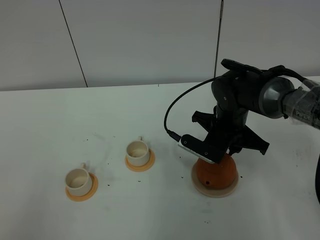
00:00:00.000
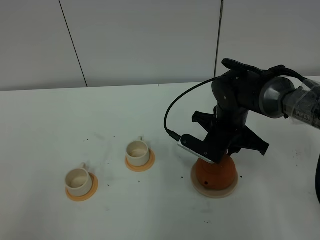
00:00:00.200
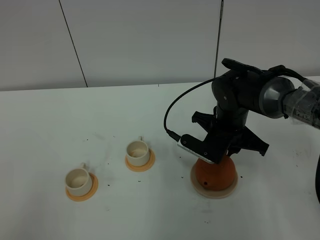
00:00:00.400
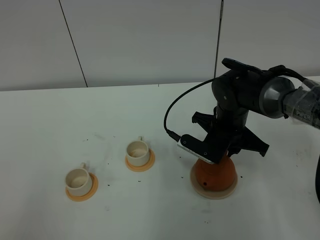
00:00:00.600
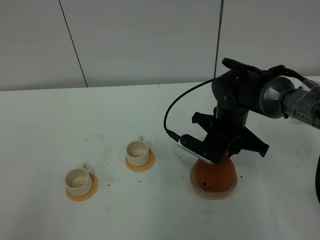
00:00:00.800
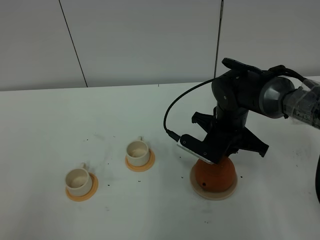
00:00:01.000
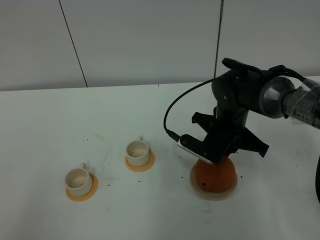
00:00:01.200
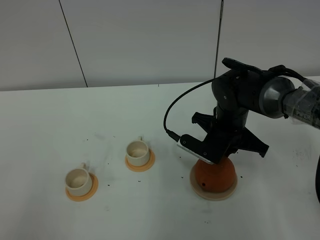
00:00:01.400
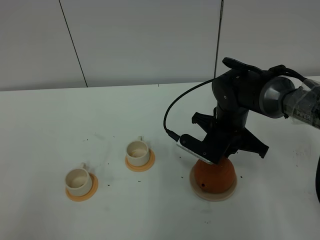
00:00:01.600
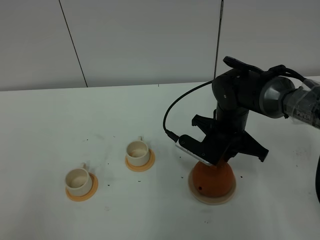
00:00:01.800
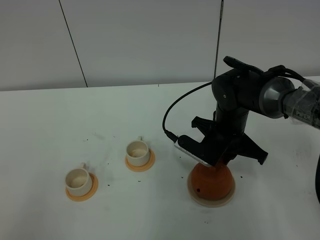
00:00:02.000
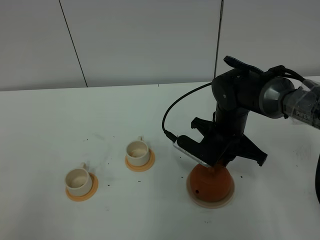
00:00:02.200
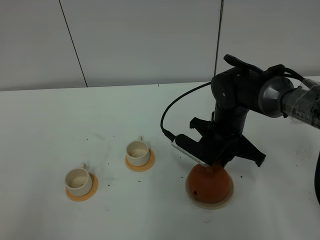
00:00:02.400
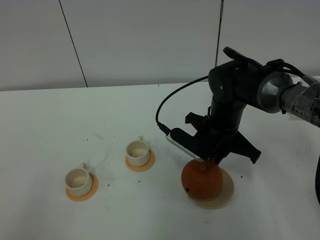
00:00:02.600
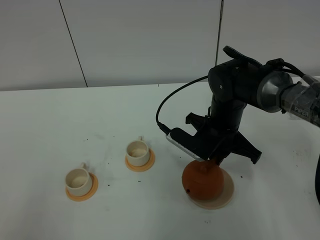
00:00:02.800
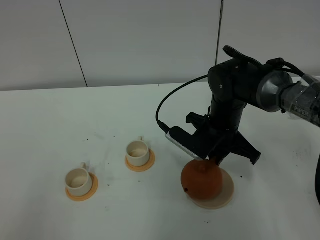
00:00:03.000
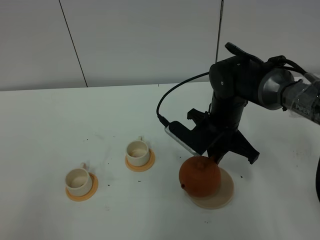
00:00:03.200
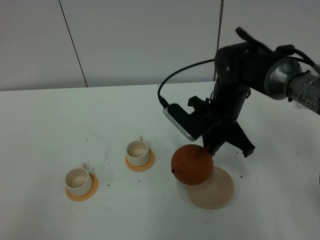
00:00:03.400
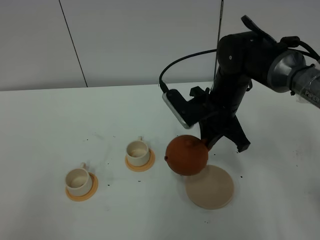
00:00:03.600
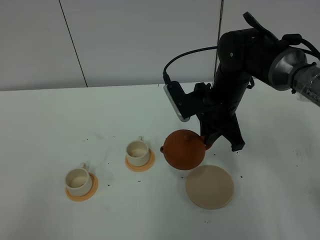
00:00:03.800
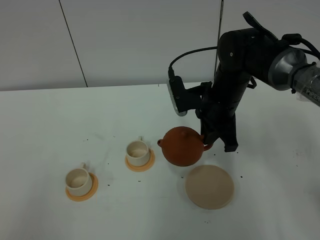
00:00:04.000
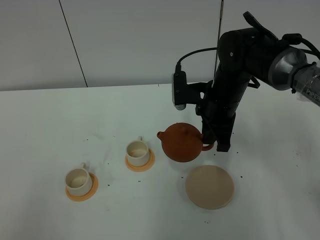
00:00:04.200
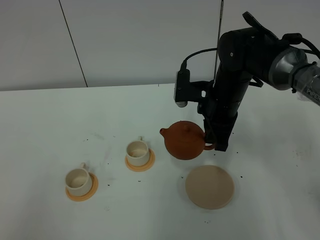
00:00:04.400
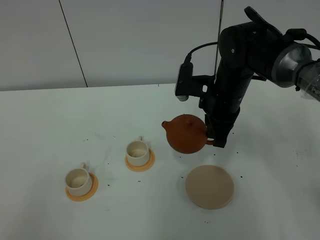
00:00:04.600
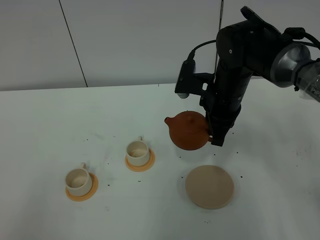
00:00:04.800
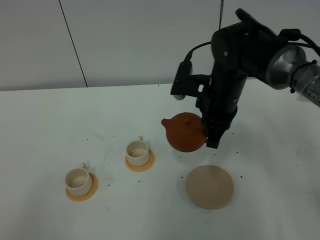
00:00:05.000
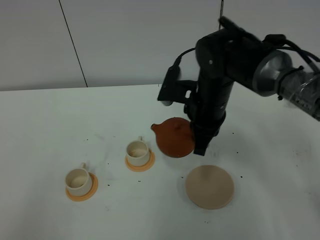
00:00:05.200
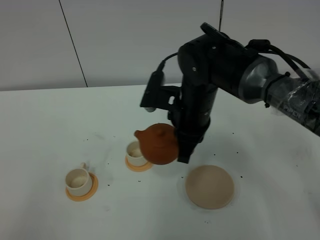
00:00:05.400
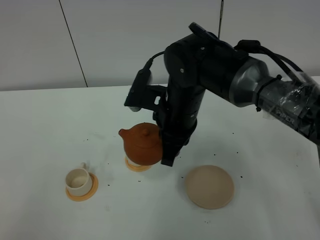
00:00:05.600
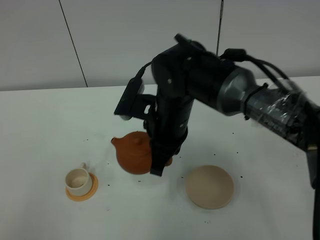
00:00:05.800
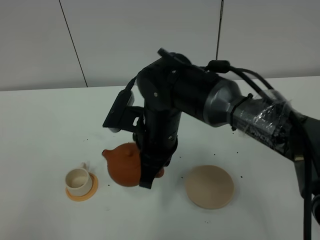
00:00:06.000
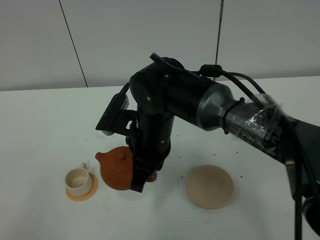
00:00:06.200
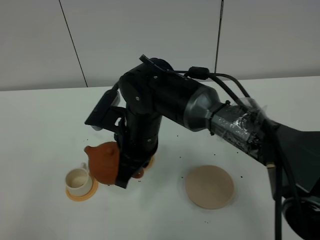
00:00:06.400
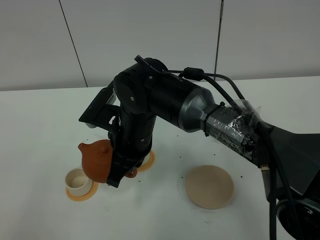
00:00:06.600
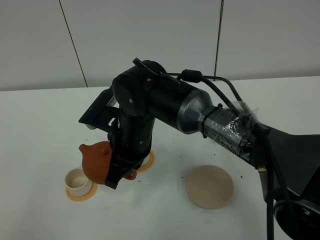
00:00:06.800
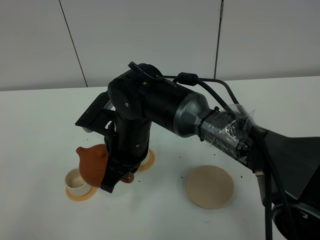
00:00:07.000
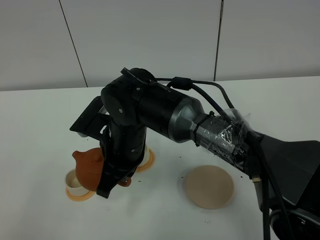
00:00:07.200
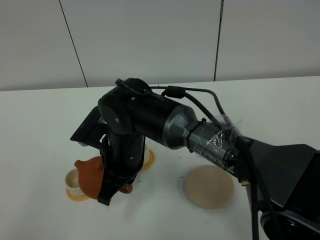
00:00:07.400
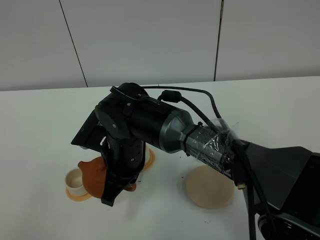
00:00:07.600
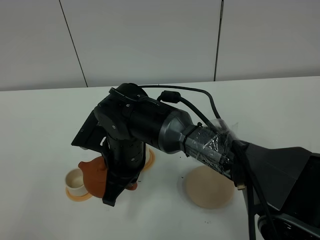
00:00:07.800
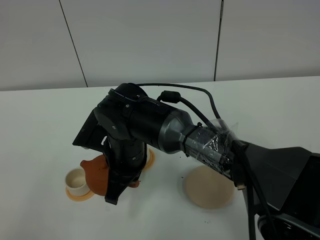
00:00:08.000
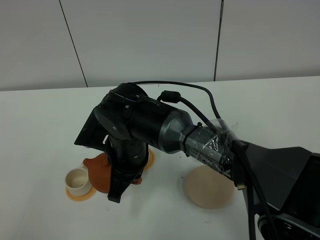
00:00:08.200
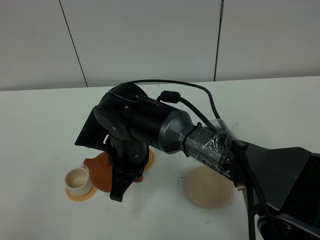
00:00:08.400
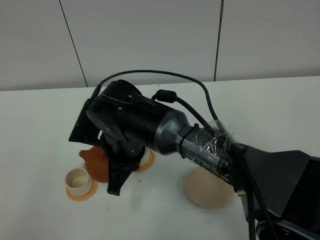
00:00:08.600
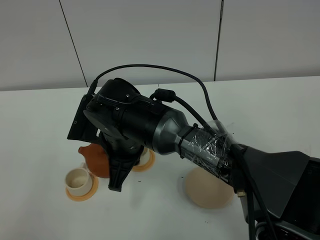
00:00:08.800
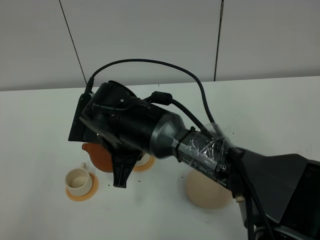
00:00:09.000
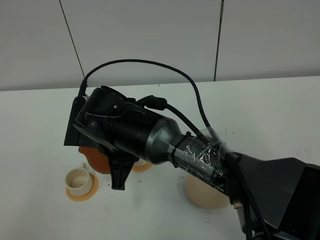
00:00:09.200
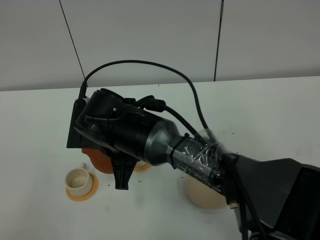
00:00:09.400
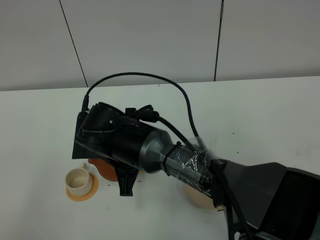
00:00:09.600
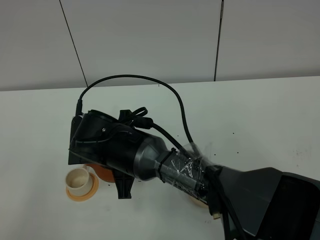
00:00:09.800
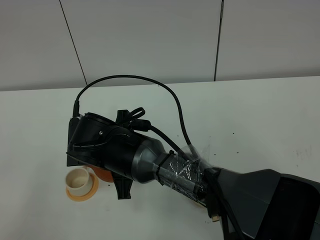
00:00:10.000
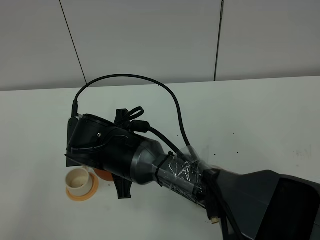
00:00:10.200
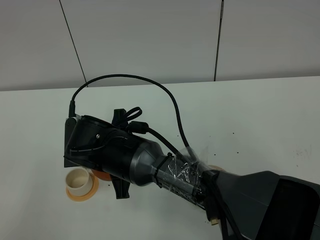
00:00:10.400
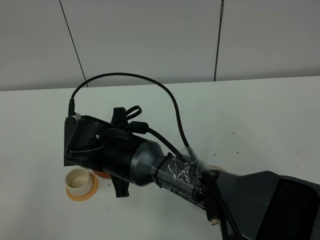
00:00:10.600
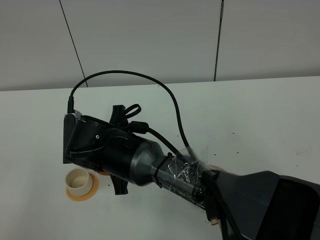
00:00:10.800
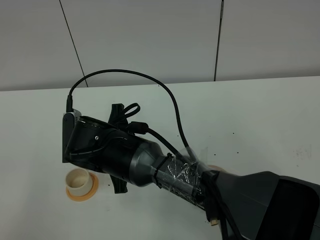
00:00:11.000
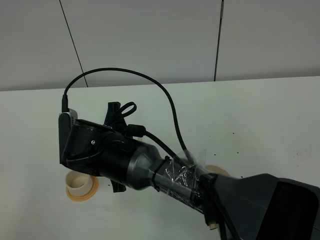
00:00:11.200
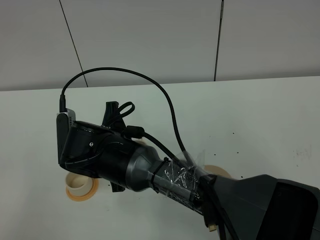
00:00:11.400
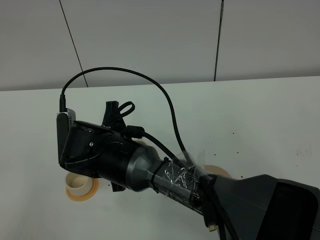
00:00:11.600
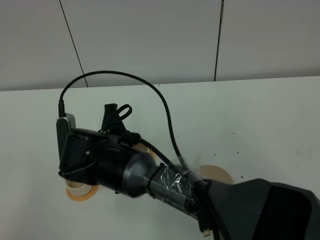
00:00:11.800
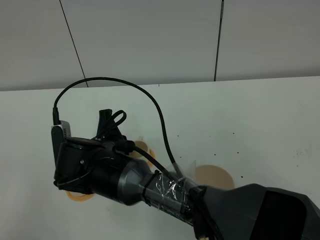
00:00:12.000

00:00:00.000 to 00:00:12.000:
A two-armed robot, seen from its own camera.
Task of the whole recording: grasp the brown teapot and pour the tea into the two white teacups one by one, put the brown teapot back in its original place.
Step, 00:00:00.000 to 00:00:03.200: Pick up the teapot with the right gripper.
00:00:00.000 to 00:00:01.600: The right gripper closes its fingers.
00:00:01.600 to 00:00:03.000: The grippers move only a little.
00:00:03.000 to 00:00:04.400: The right gripper moves about 5 cm.
00:00:04.400 to 00:00:06.000: The right gripper moves to the left and backward, about 15 cm.
00:00:06.000 to 00:00:07.600: The right gripper shifts approximately 5 cm to the left.
00:00:10.400 to 00:00:12.000: The grippers move only a little.

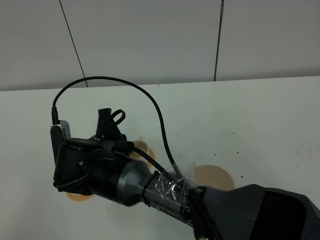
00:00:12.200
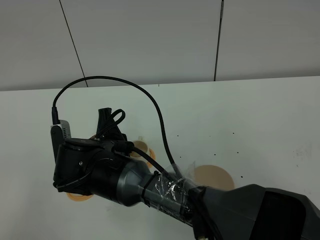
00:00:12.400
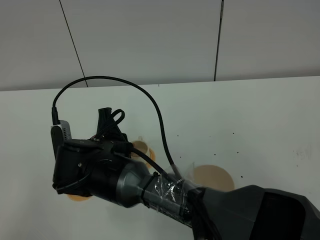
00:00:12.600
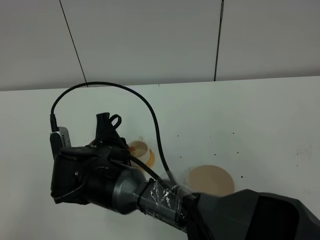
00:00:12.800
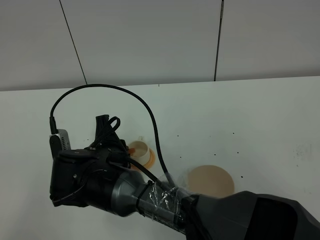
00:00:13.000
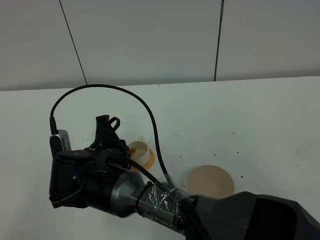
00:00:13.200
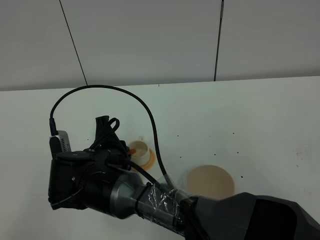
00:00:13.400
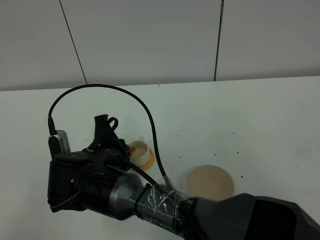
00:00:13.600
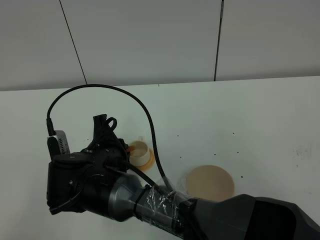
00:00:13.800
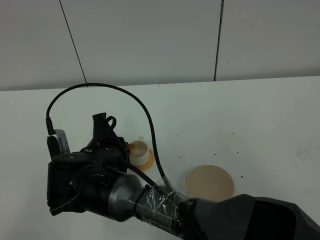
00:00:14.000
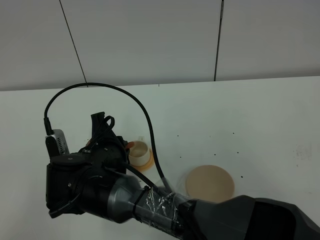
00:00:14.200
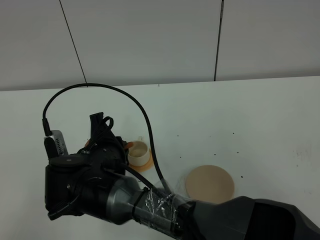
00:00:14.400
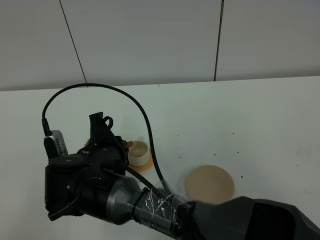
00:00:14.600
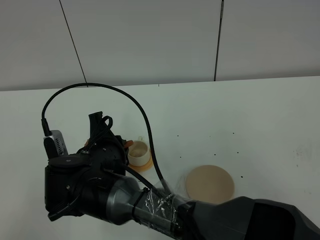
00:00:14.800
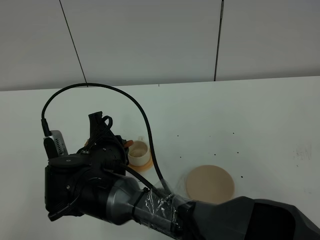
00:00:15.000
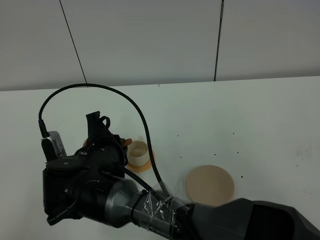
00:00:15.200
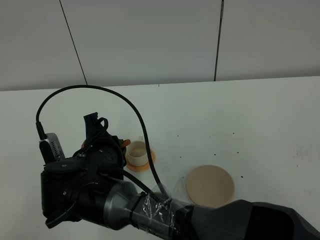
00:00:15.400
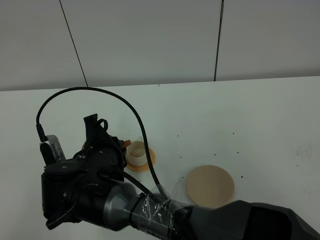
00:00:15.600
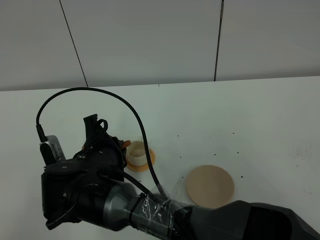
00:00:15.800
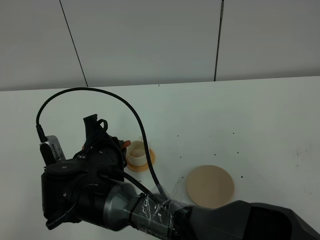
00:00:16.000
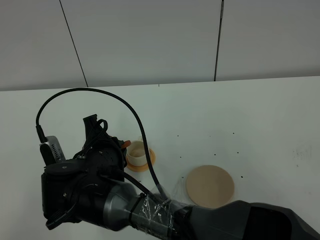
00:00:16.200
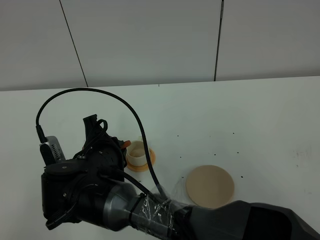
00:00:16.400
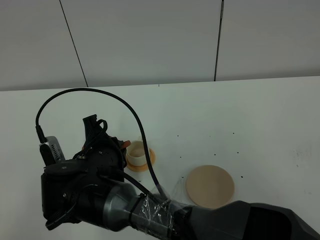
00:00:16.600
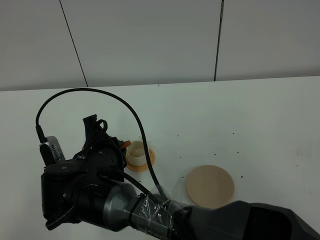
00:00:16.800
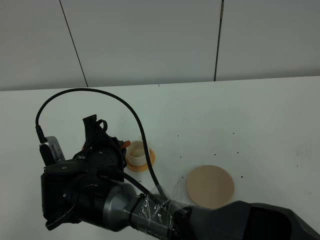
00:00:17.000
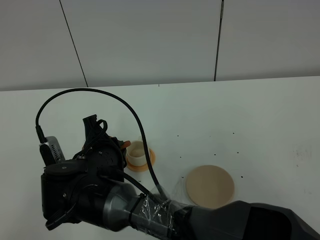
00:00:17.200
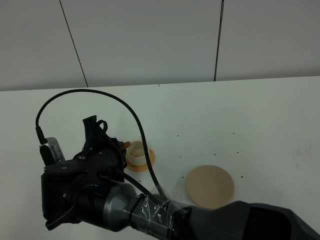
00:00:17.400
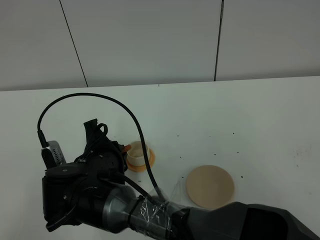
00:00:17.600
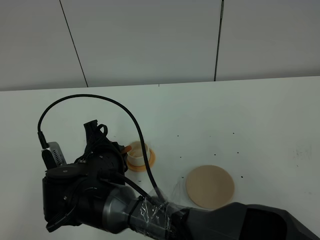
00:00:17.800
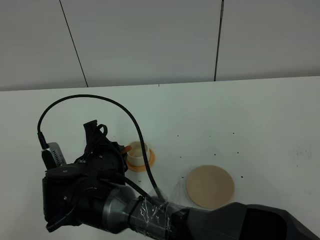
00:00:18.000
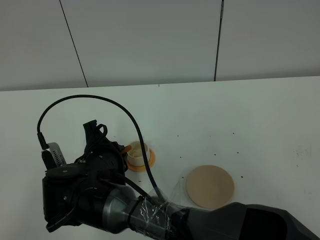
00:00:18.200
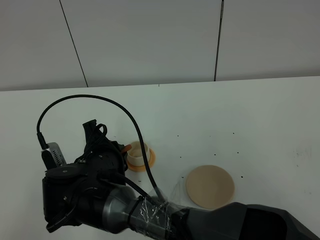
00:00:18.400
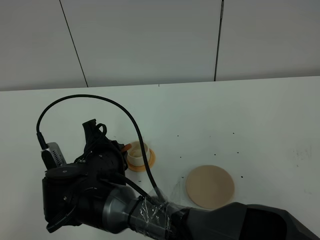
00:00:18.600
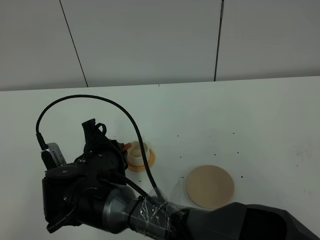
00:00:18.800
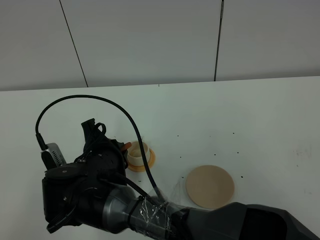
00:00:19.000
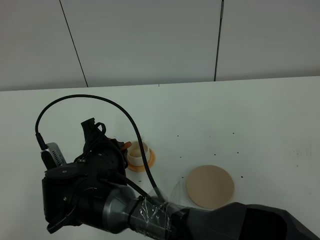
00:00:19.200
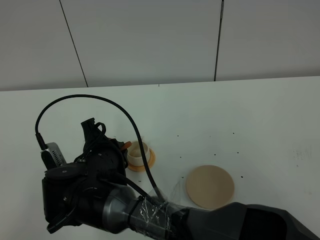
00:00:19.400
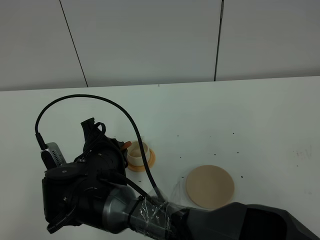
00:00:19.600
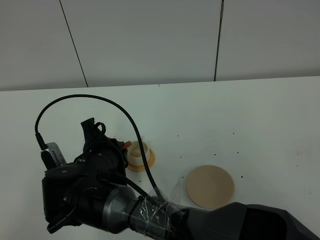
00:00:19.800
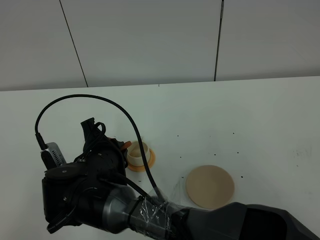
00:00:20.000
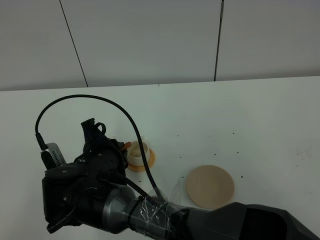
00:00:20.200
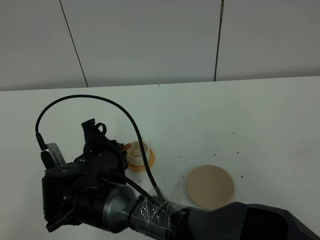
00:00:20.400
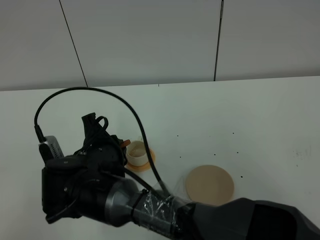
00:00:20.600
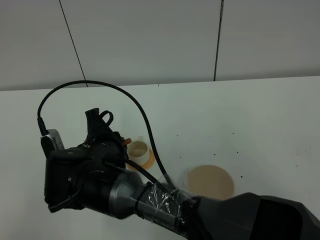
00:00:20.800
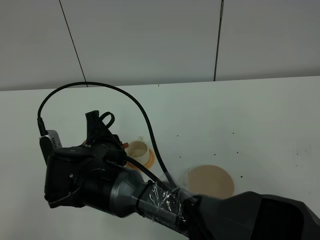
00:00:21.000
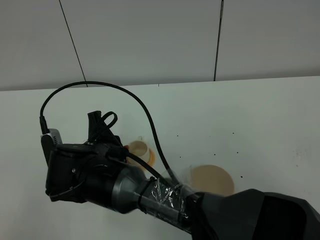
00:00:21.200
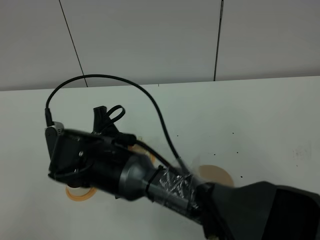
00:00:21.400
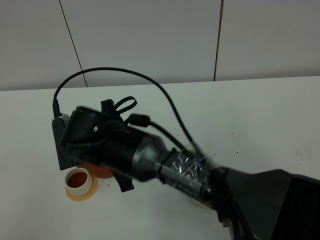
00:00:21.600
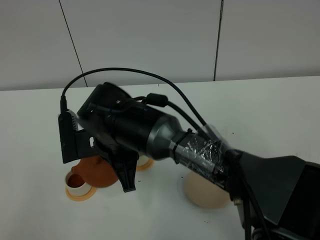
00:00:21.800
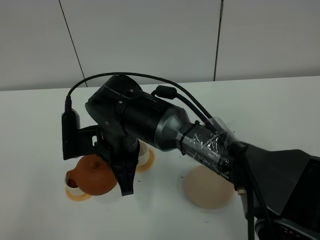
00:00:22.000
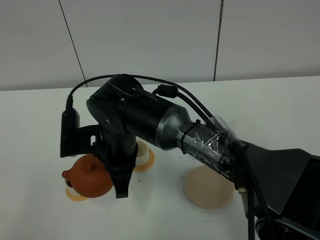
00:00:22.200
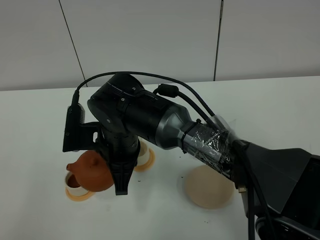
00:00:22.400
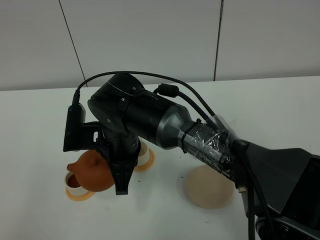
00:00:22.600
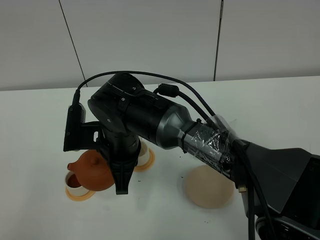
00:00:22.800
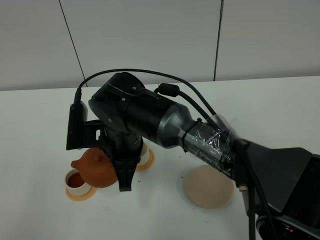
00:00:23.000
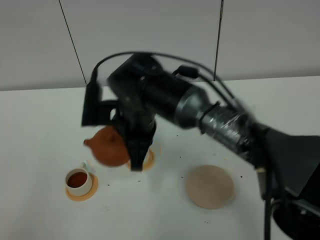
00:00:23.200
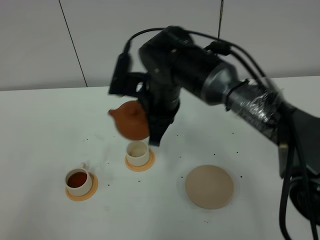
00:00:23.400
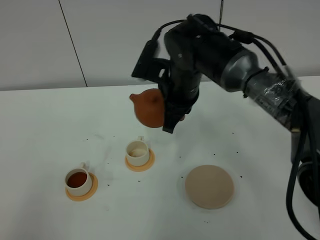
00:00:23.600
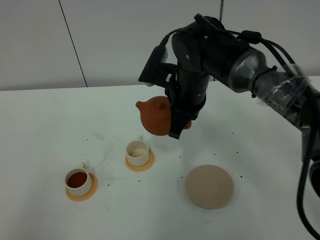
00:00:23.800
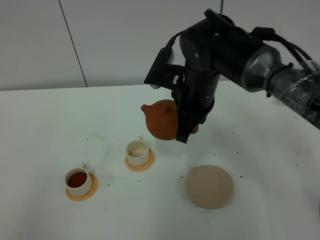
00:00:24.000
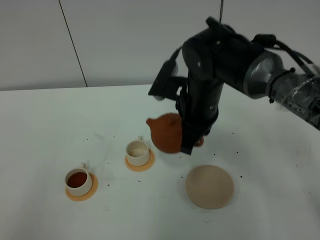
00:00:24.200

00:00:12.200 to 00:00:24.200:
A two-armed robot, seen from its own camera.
Task of the whole recording: grasp the brown teapot and pour the tea into the two white teacups one by one, put the brown teapot back in its original place.
Step, 00:00:12.200 to 00:00:21.800: Pour tea into the teacup with the right gripper.
00:00:12.200 to 00:00:15.200: The grippers stay close to where they were, moving slightly.
00:00:15.200 to 00:00:16.600: Both grippers stay put.
00:00:16.600 to 00:00:18.200: The two grippers keep their place.
00:00:18.200 to 00:00:19.800: Neither gripper changes place.
00:00:19.800 to 00:00:21.200: The grippers move only a little.
00:00:21.200 to 00:00:22.600: The right gripper moves approximately 5 cm.
00:00:22.600 to 00:00:24.200: The right gripper is displaced to the right and forward by approximately 15 cm.
